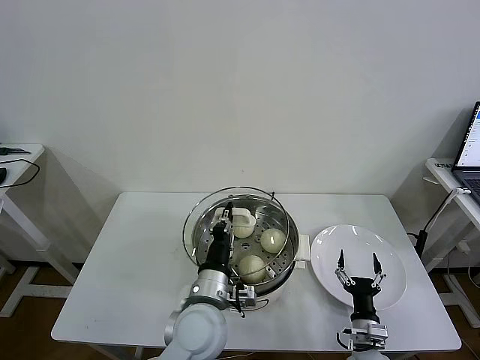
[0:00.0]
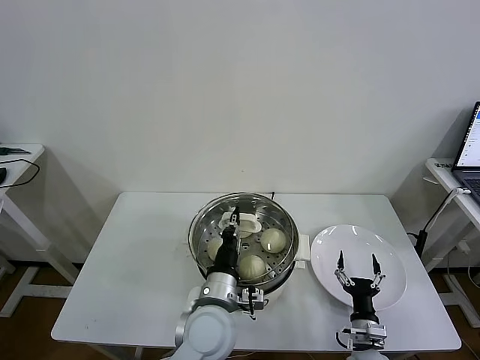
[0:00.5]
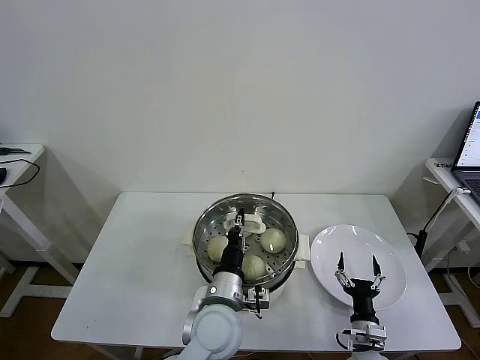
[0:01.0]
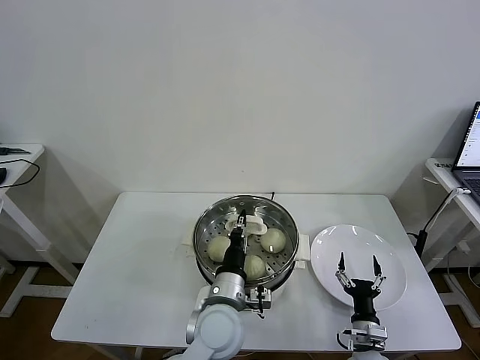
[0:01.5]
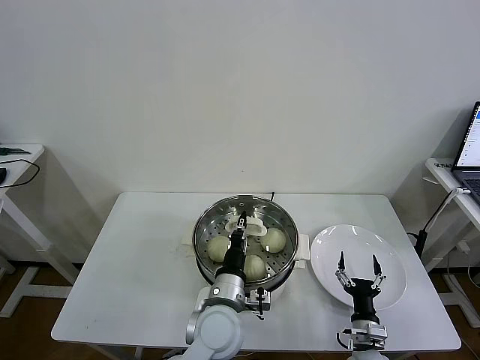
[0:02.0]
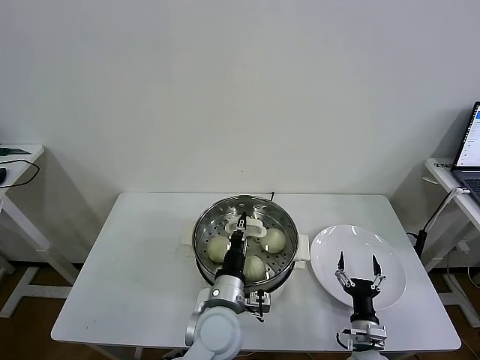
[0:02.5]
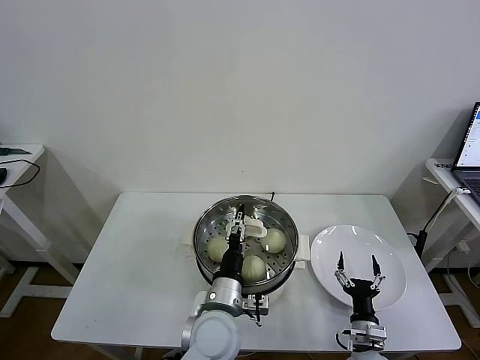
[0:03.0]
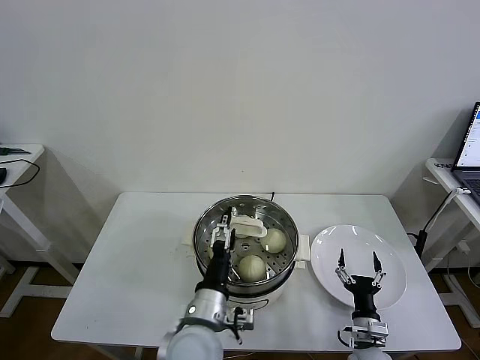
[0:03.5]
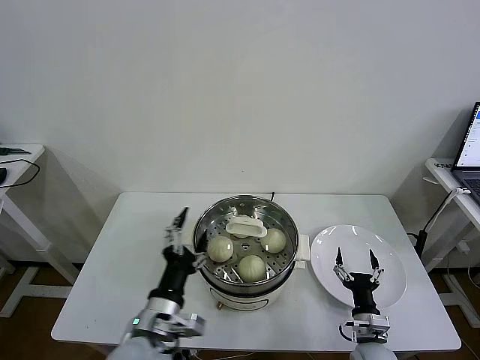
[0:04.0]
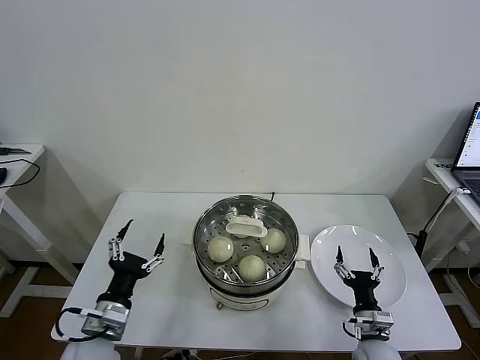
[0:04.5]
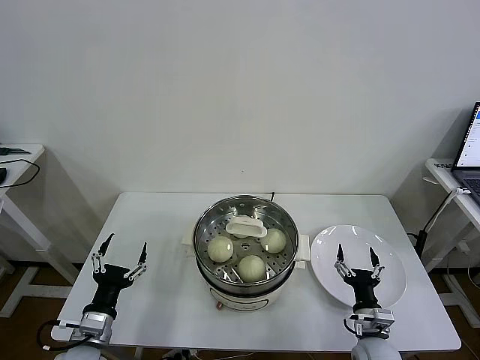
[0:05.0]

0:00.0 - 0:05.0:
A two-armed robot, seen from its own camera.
Task of the whole recording: take steamed baozi put them in steamer then cover it.
Step, 0:00.0 - 0:02.5: Place the pot lid on the steamer with left gripper.
0:00.0 - 0:02.5: The grippers make only small movements.
0:02.5 - 0:05.0: The left gripper moves to the left, about 25 cm, and opens.
